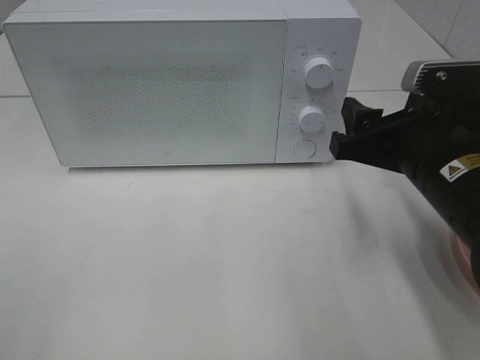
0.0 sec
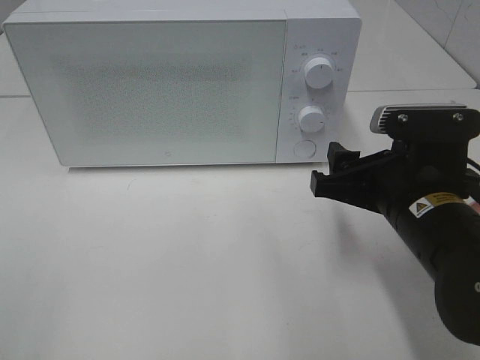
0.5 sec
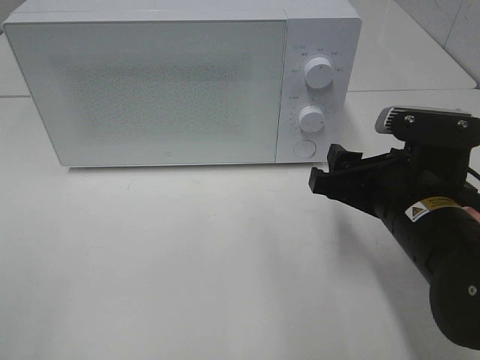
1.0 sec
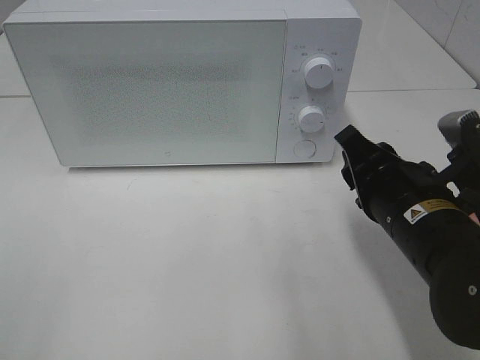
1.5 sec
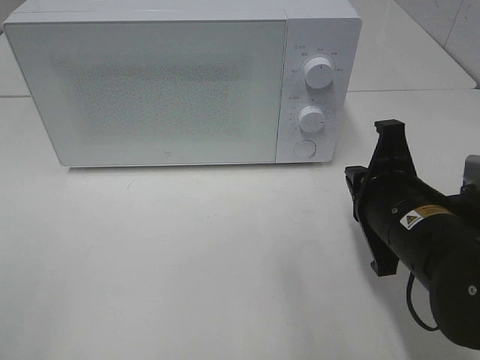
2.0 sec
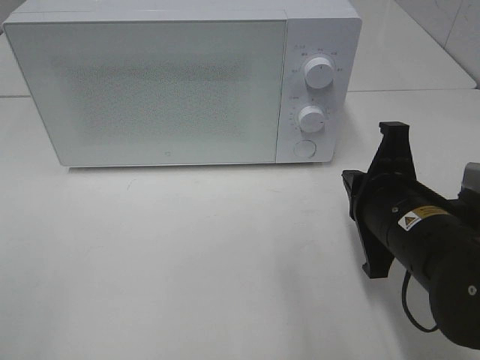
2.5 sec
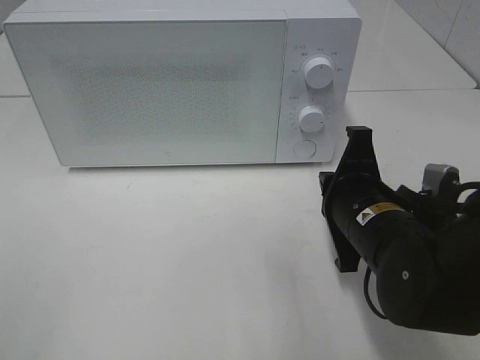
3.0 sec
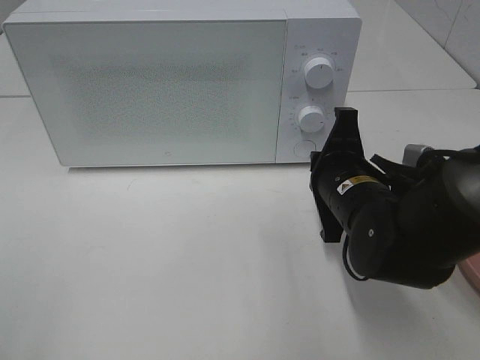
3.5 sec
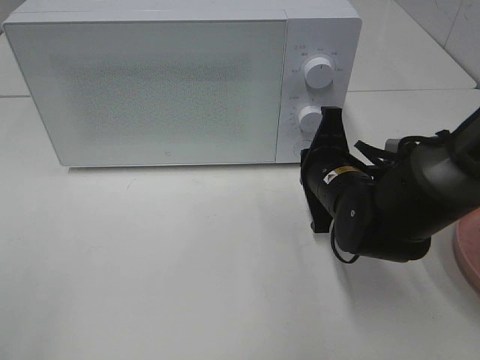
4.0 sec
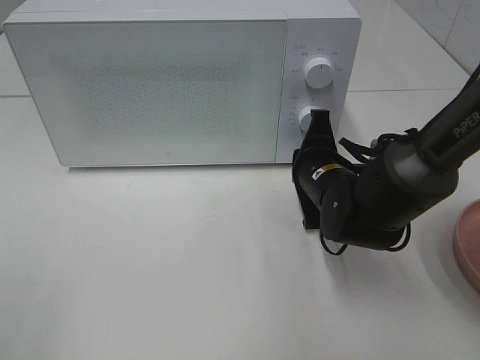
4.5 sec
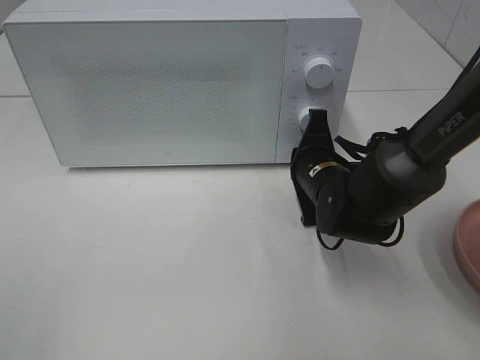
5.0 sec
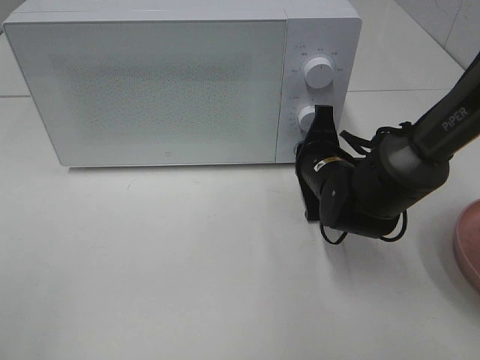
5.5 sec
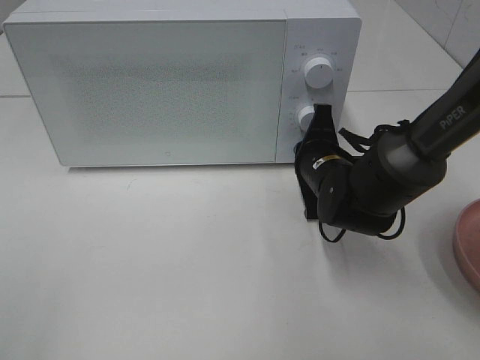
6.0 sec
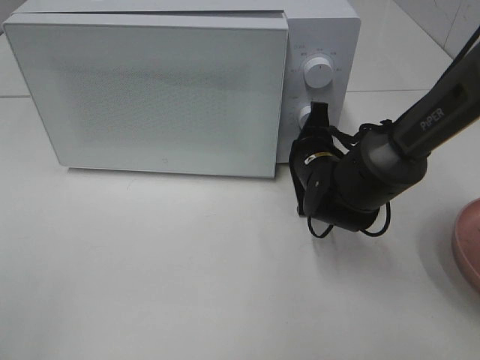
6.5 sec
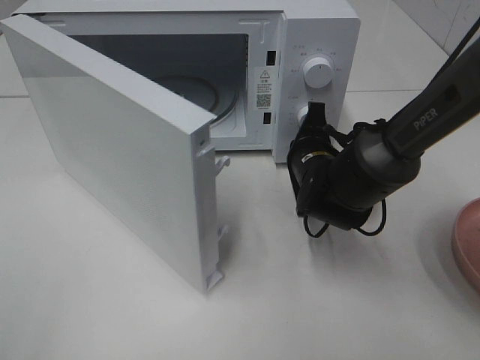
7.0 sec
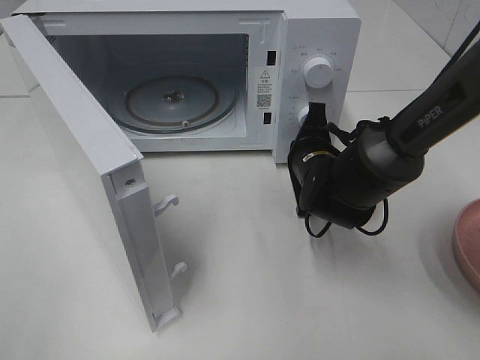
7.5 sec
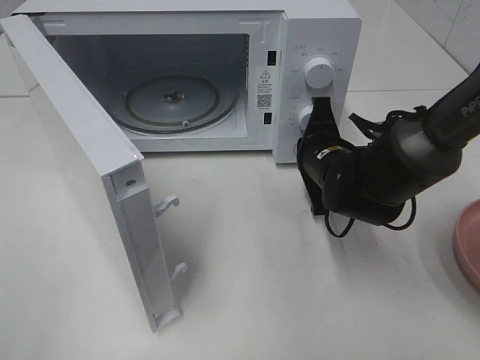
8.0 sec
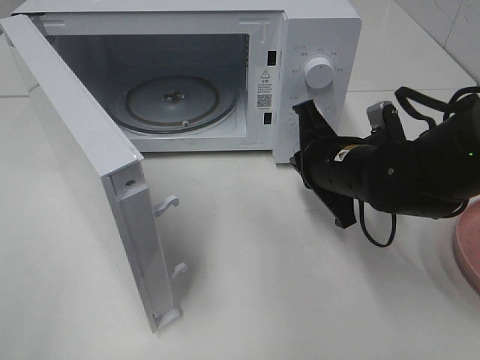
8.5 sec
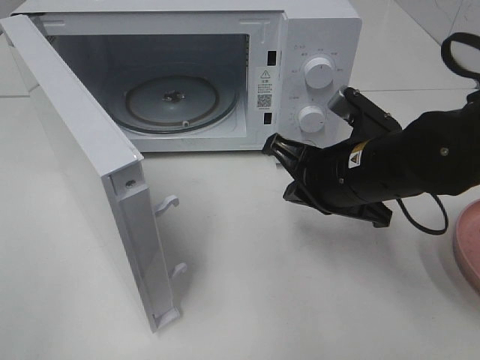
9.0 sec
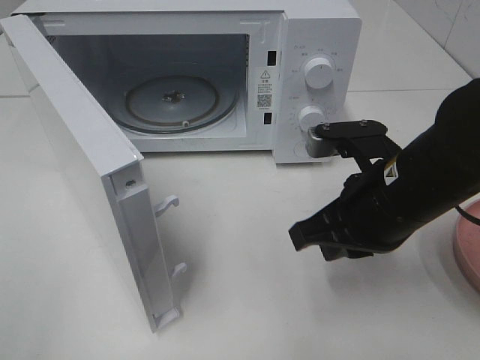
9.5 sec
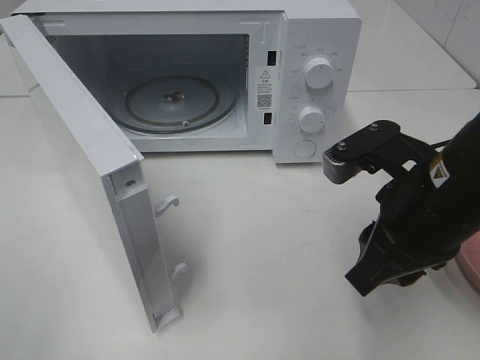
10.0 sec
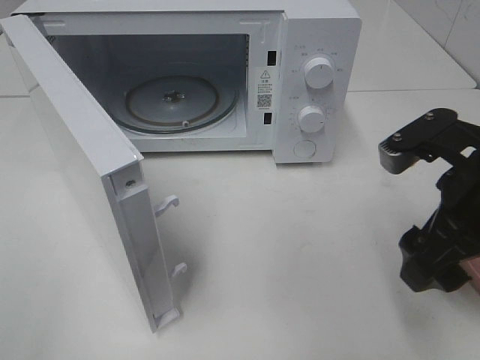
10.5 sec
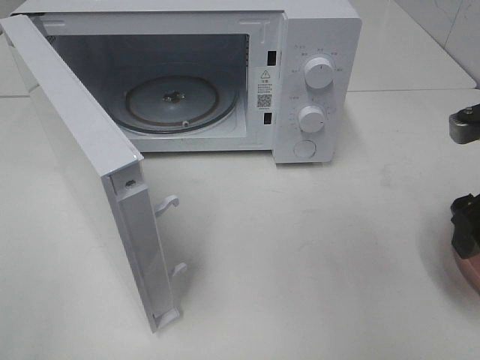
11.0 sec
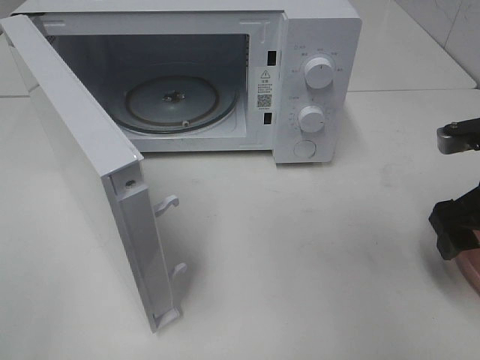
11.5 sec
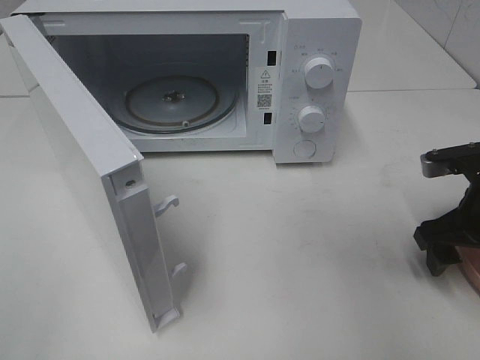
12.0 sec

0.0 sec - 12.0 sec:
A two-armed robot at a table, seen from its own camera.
Task of the whole recording: Heat the burger.
Step, 0.0 sec - 8.0 sec: Right hand: press the switch.
0.0 sec - 2.0 sec: The right gripper ends up some 5 cm from where it was, and closes its fingers.
2.0 sec - 4.0 sec: The right gripper heads forward, covering approximately 10 cm.
4.0 sec - 6.0 sec: The right gripper ends up about 5 cm from where it was.
8.0 sec - 10.0 sec: The right gripper goes approximately 20 cm backward and upward, and opens up.
10.0 sec - 12.0 sec: The right gripper goes approximately 15 cm to the right, downward and forward, and opens its fingers.

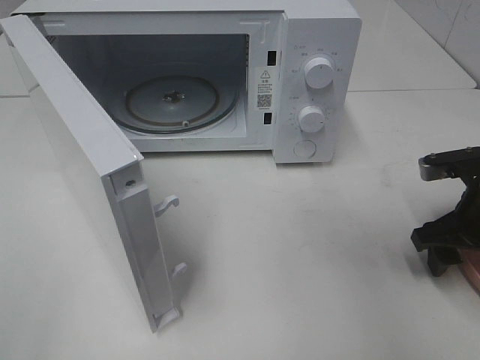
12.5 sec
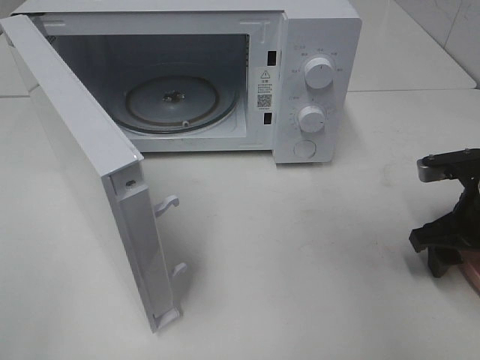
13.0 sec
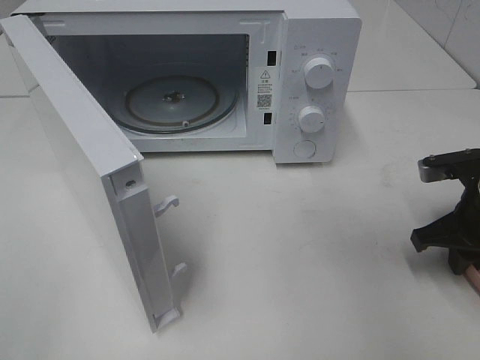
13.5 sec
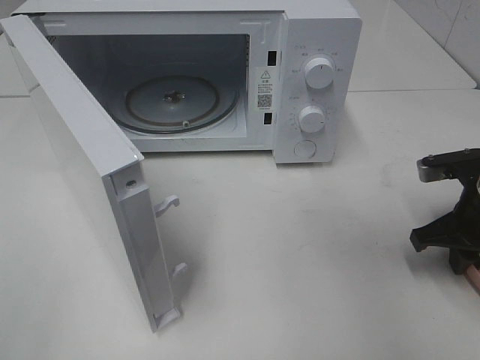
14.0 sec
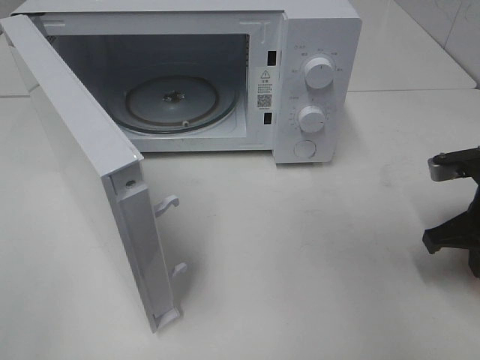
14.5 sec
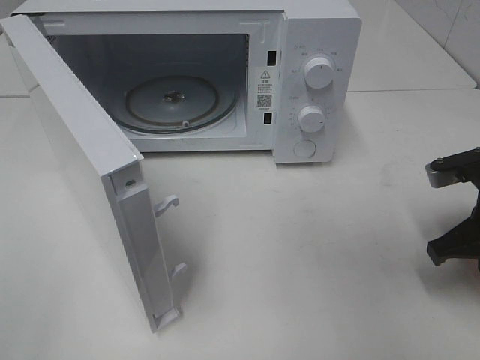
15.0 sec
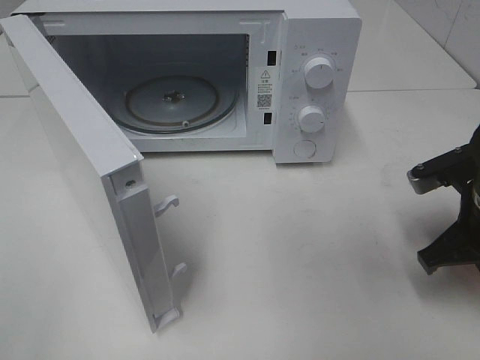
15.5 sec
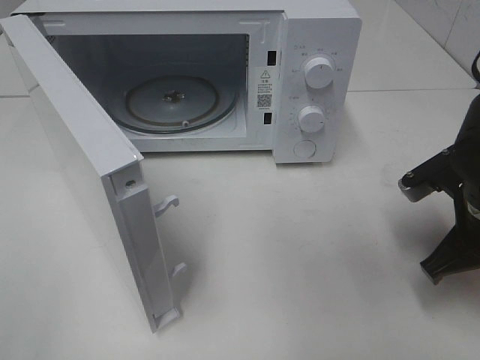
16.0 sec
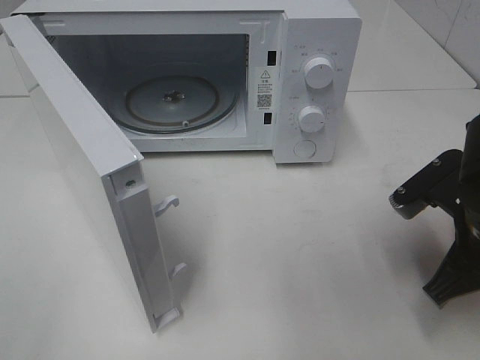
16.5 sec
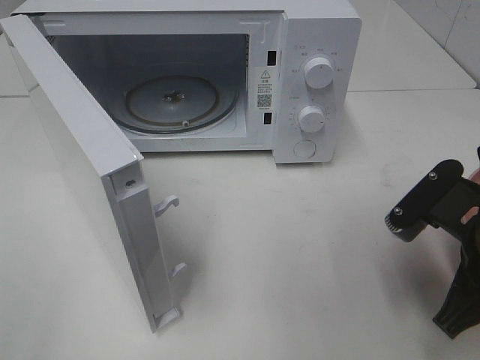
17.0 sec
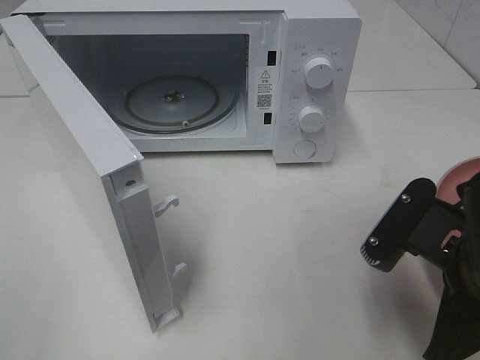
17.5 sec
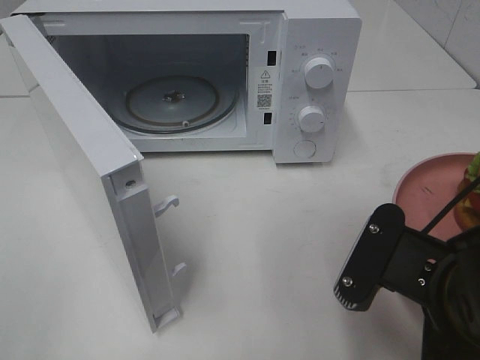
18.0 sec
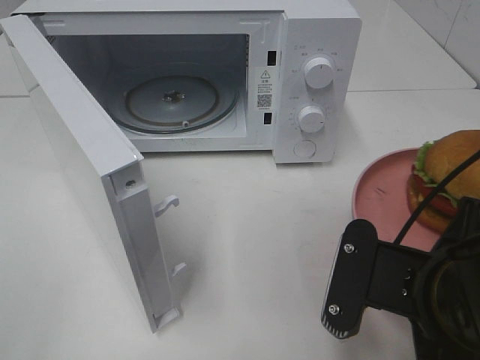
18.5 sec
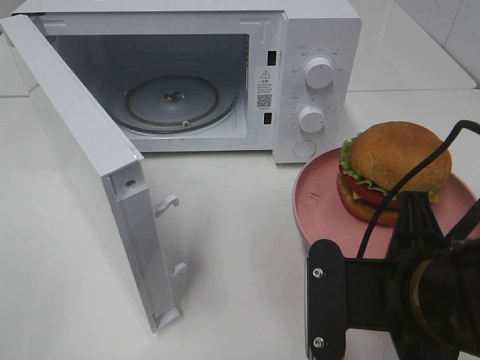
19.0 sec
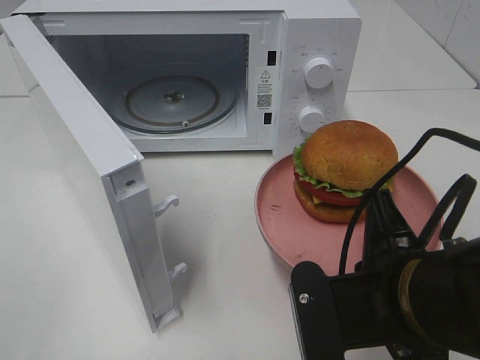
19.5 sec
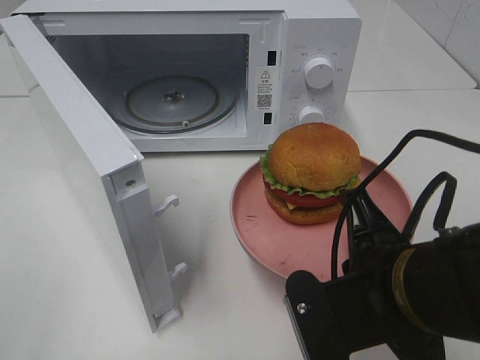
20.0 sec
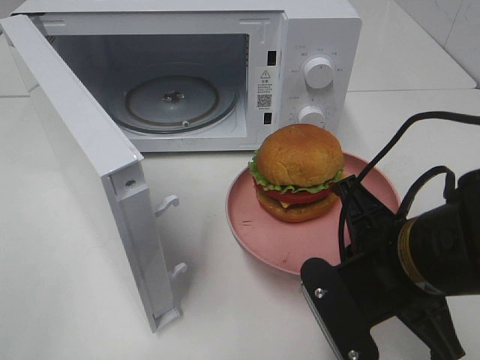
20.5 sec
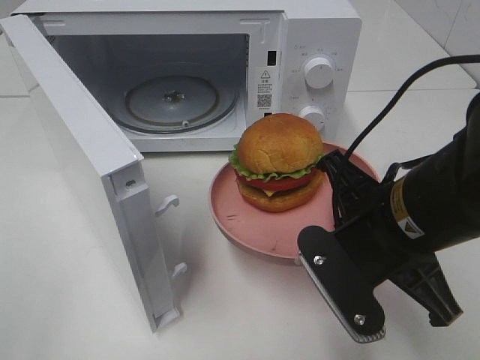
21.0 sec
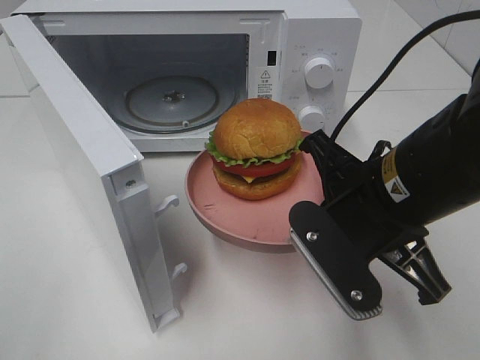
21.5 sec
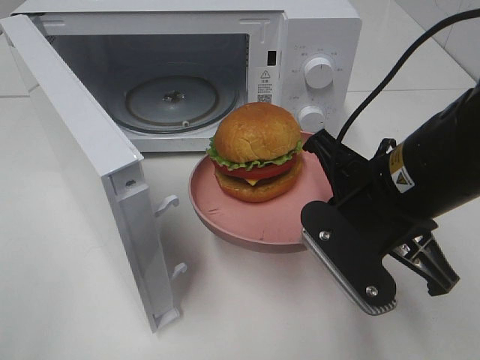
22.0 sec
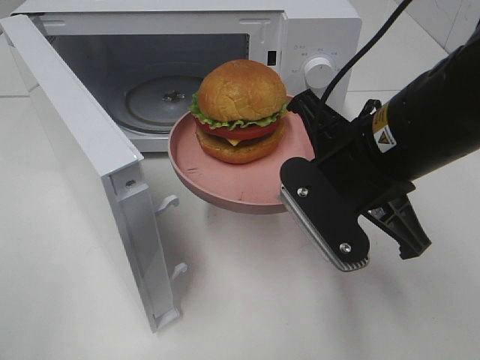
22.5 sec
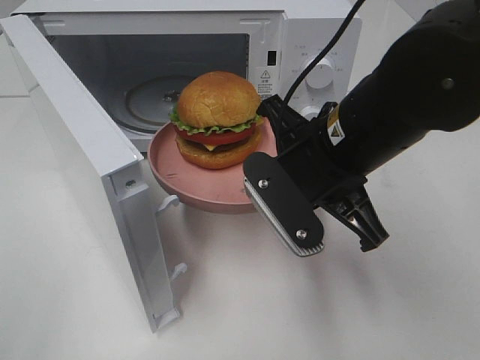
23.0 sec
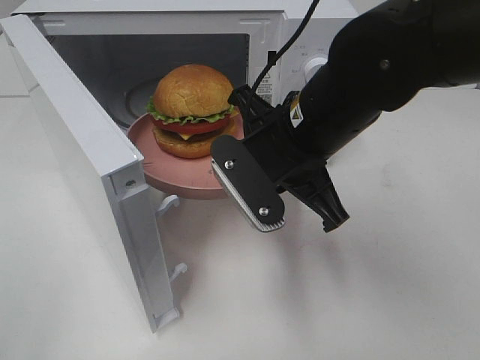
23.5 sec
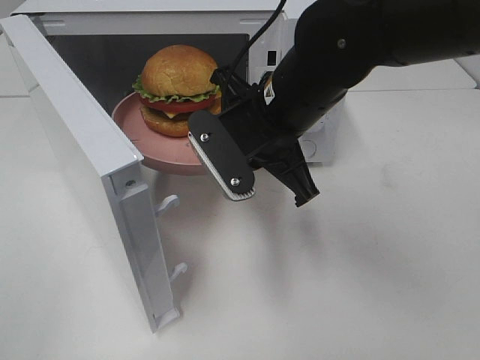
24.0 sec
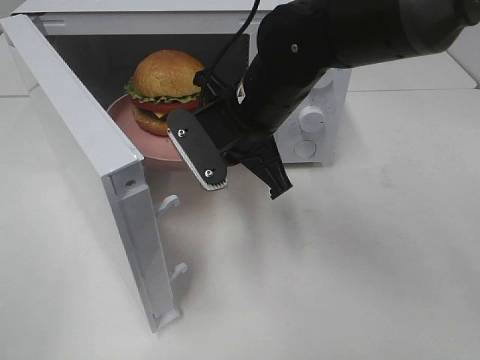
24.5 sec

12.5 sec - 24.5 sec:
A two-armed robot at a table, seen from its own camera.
Task of the whole recording: Heat the burger.
Step, 12.5 sec - 15.0 sec: Right hand: grab the plate with the hamburger.
12.5 sec - 14.5 sec: The right gripper closes its fingers.
14.5 sec - 16.5 sec: The right gripper travels to the left and backward by approximately 10 cm.
16.5 sec - 18.5 sec: The right gripper is displaced backward and to the left by about 10 cm.
20.5 sec - 22.5 sec: The right gripper shifts some 10 cm upward and forward.
22.5 sec - 24.5 sec: The right gripper goes about 15 cm forward and to the left.

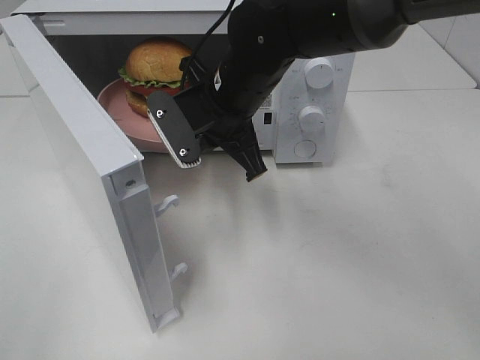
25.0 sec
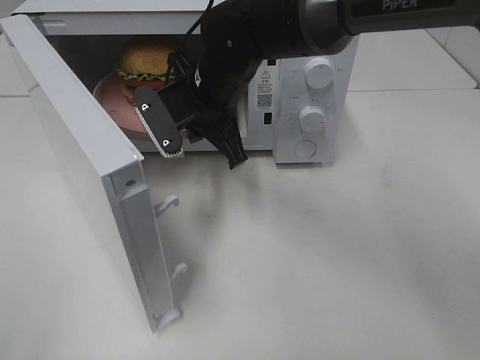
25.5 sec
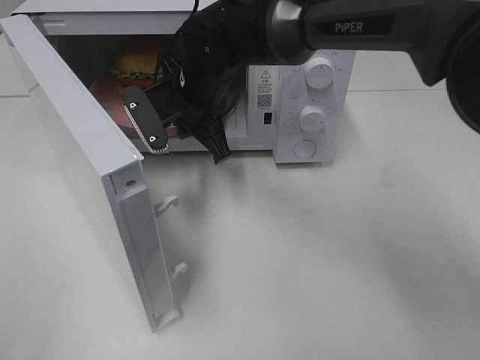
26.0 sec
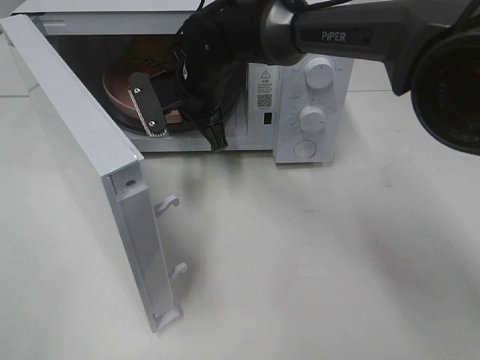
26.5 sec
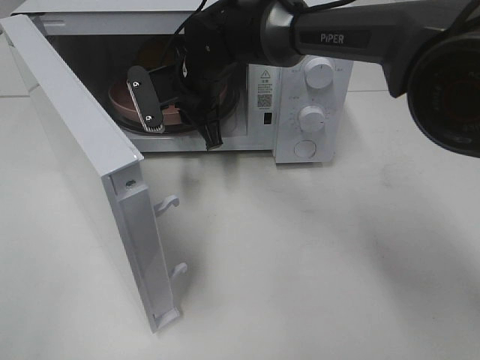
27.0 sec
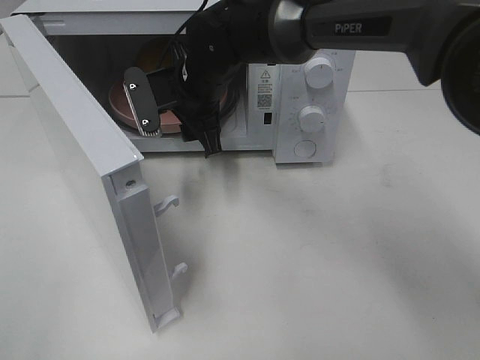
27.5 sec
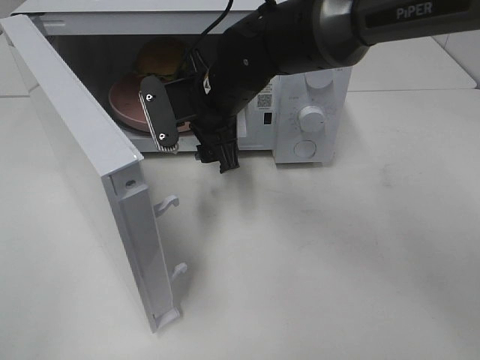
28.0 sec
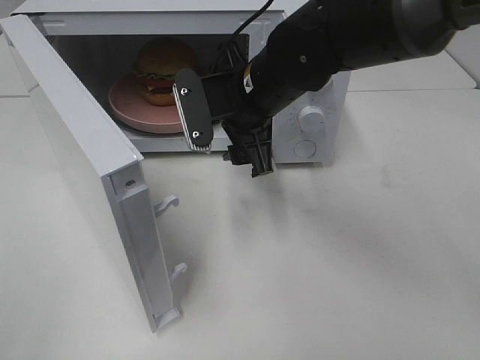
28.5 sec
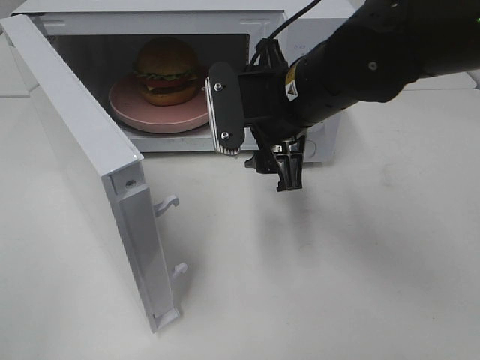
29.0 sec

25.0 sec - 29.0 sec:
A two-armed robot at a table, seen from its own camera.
Task of the whole recording: Heat the burger.
Step, 25.0 sec - 27.5 sec: Right hand: place the plate in the microwave.
25.0 sec - 27.0 sec: The right gripper heads forward, covering about 10 cm.
27.0 sec - 29.0 sec: The right gripper goes roughly 15 cm backward and to the right, and opens up.
